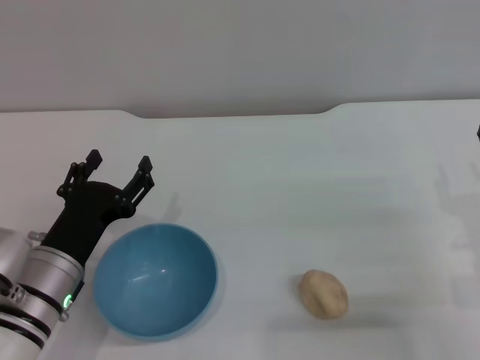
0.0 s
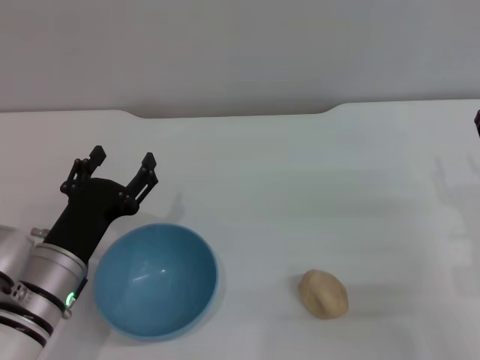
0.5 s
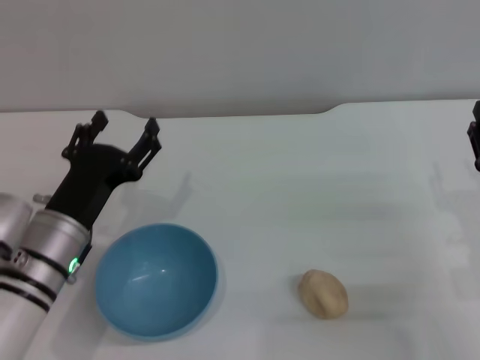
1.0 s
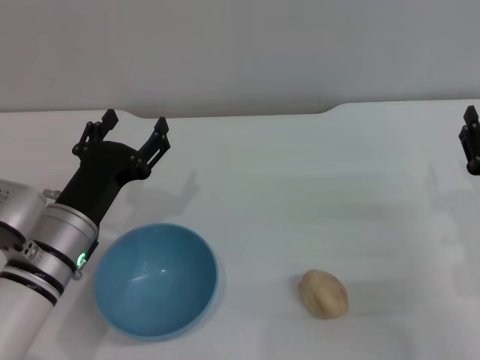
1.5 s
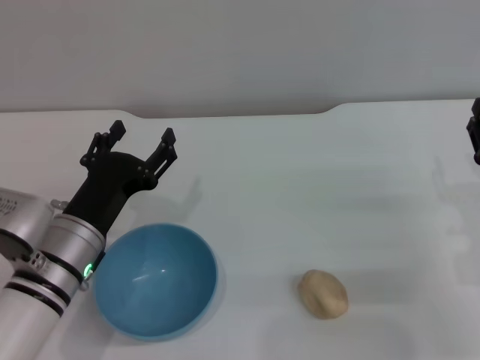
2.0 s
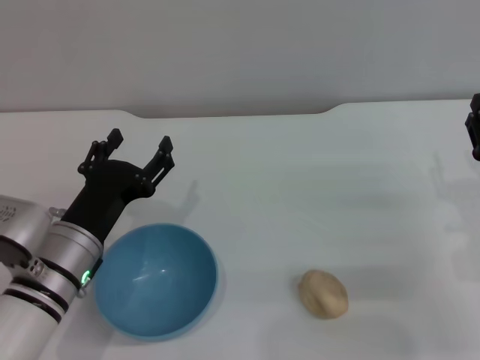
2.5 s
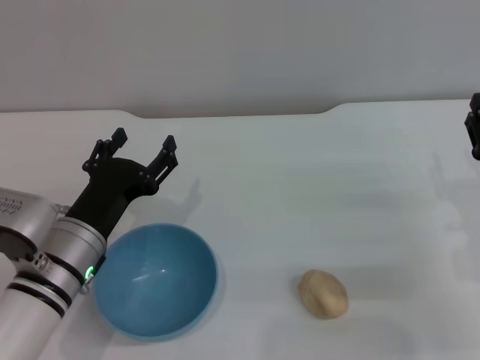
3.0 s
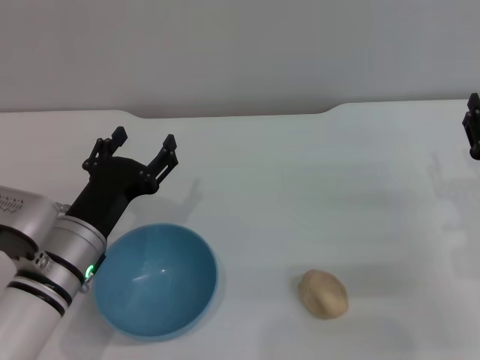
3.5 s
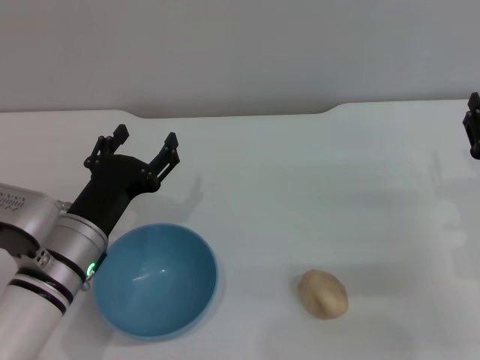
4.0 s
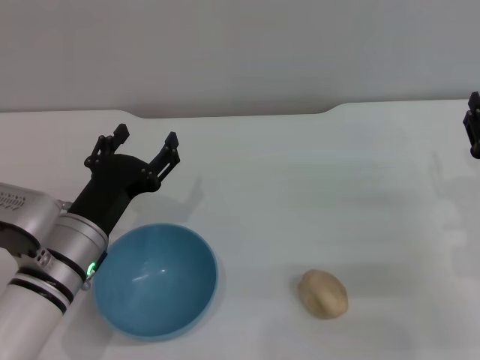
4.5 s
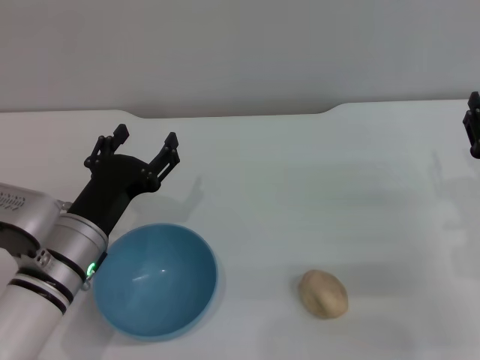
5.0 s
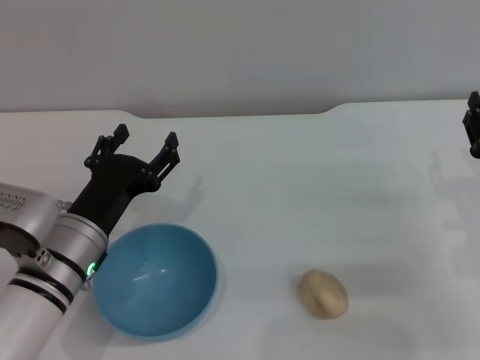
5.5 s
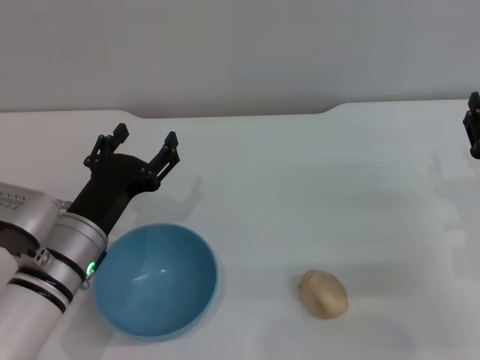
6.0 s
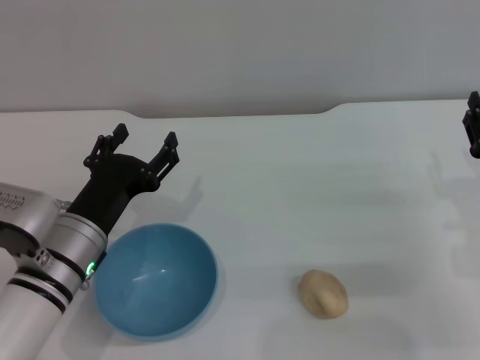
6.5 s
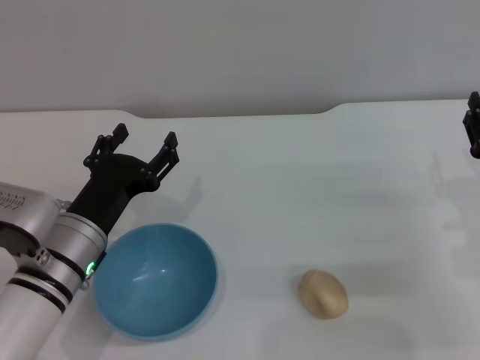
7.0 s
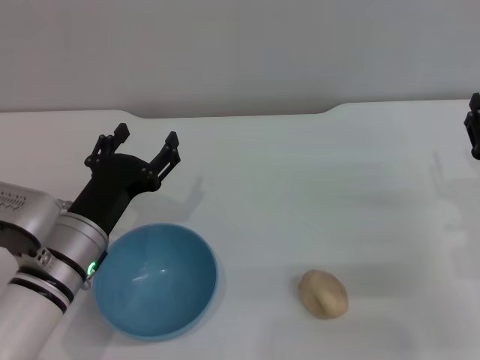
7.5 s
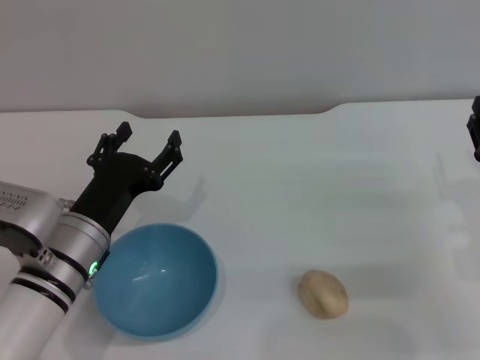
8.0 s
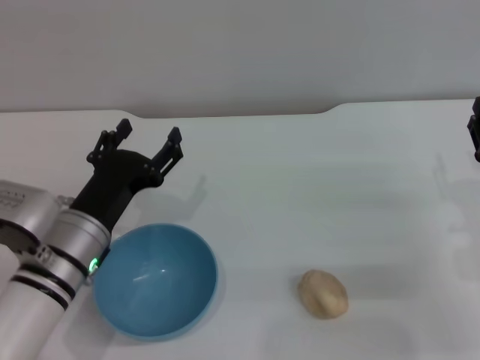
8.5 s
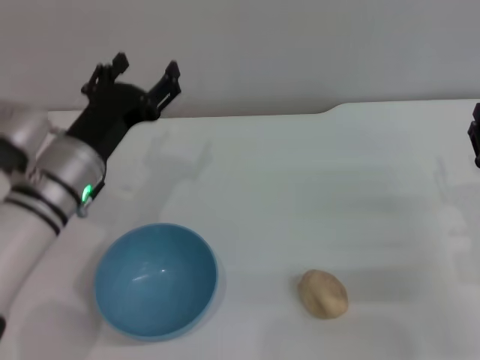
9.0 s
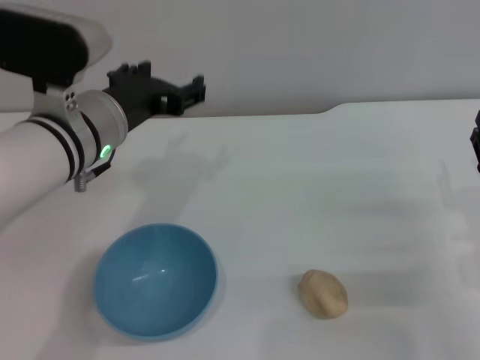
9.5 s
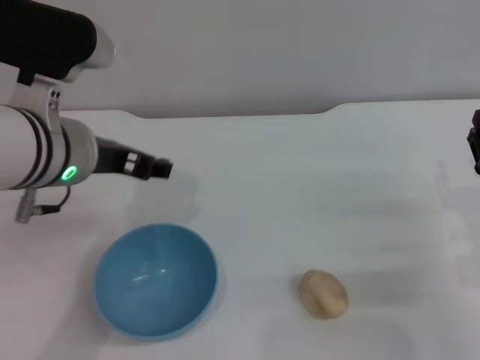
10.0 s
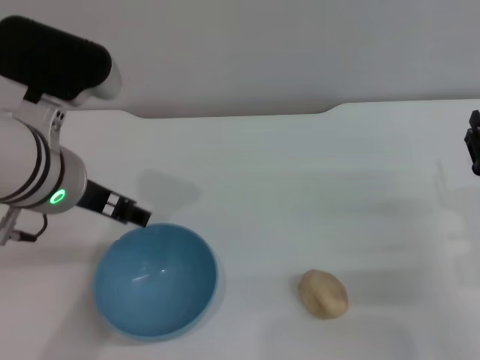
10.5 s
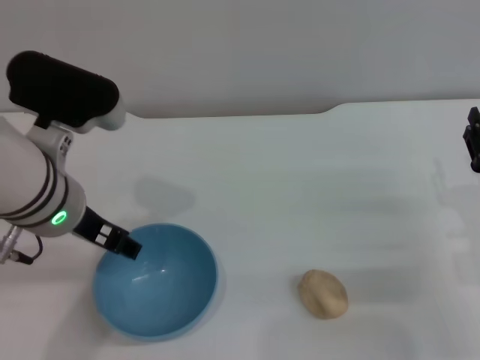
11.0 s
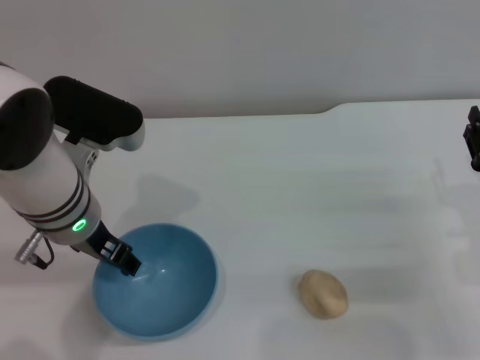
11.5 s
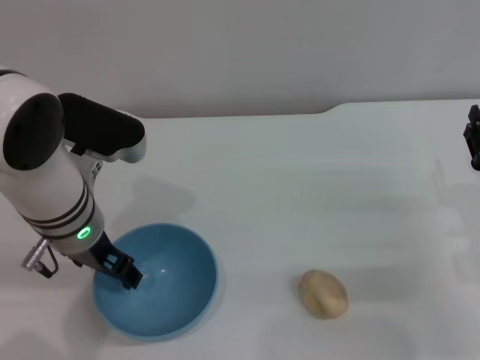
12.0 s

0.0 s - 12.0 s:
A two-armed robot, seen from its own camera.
Task of the whole recording: put the egg yolk pastry into the blue bowl and pour it out repeatedly.
0.0 s - 2.0 s: The grippers stay close to where they were, moving slightly.
2.0 s - 8.0 s: The two grippers keep their place.
8.0 s - 10.0 s: The left gripper travels upward by some 15 cm.
10.0 s - 12.0 s: The left gripper shifts approximately 5 cm downward.

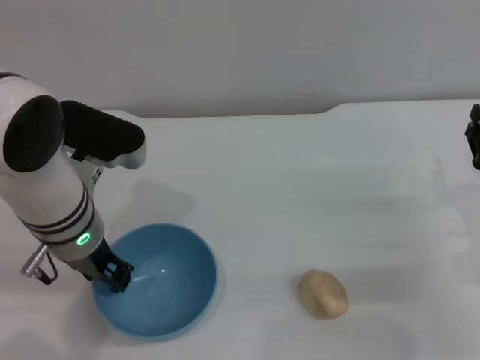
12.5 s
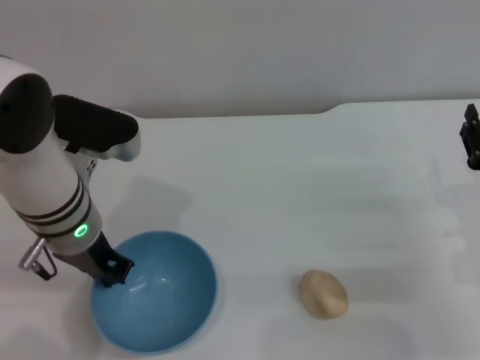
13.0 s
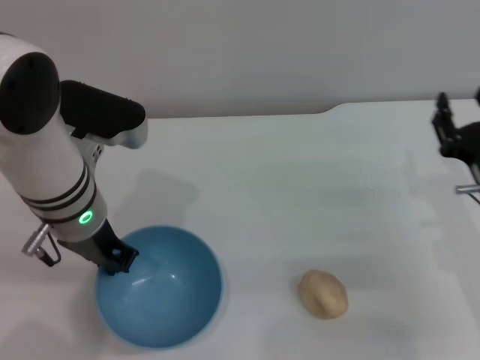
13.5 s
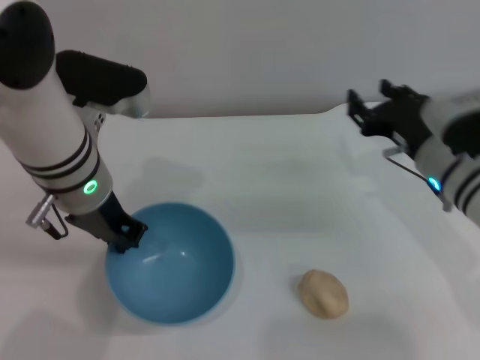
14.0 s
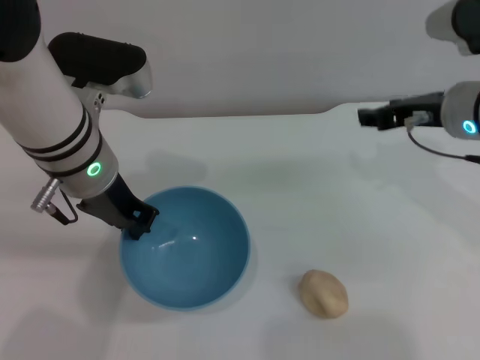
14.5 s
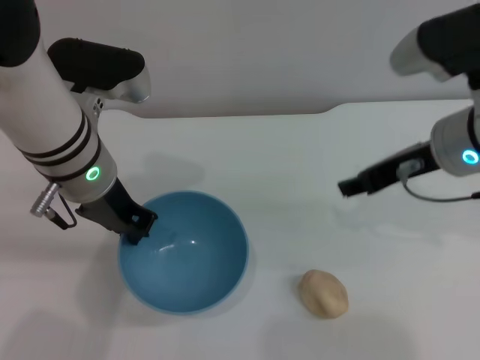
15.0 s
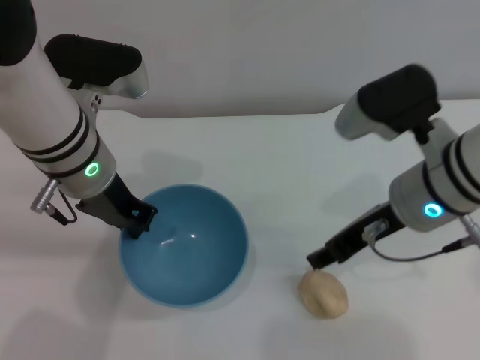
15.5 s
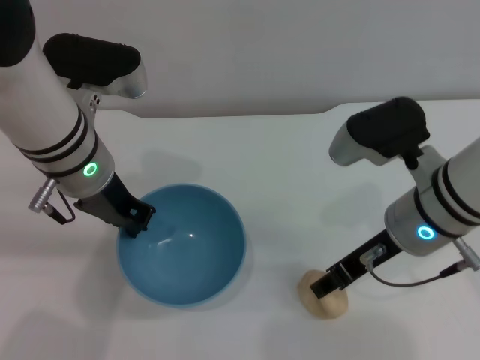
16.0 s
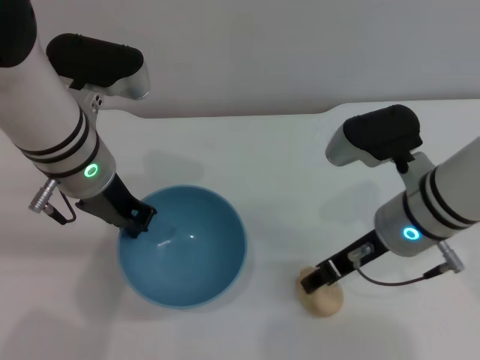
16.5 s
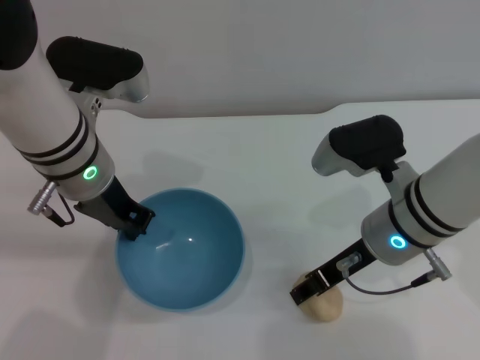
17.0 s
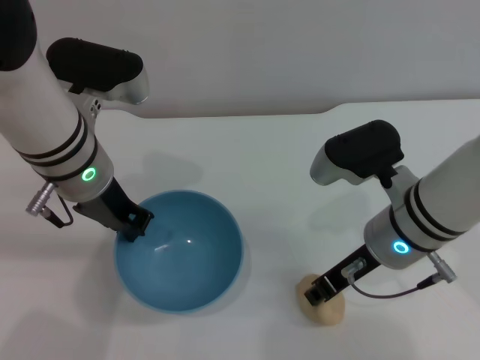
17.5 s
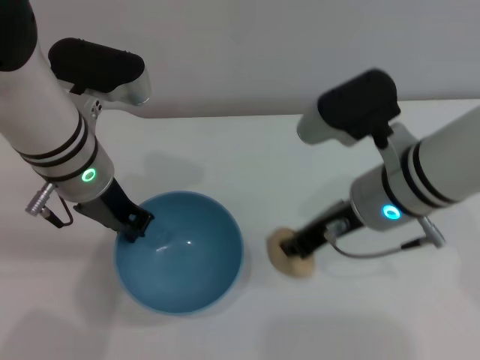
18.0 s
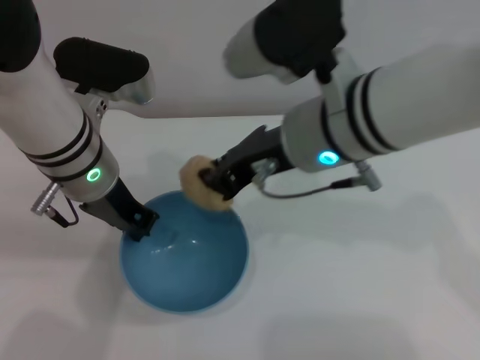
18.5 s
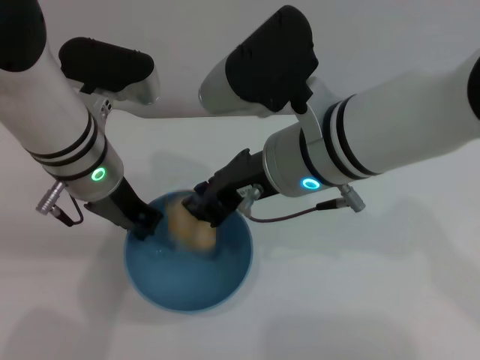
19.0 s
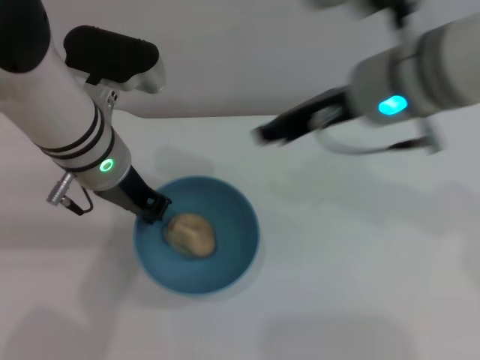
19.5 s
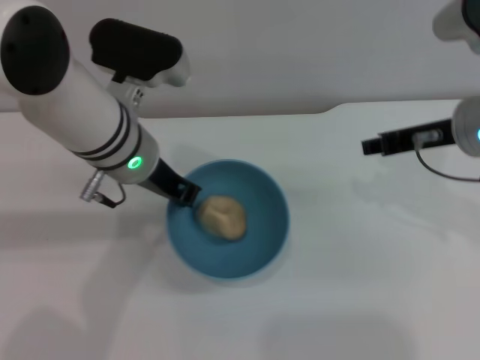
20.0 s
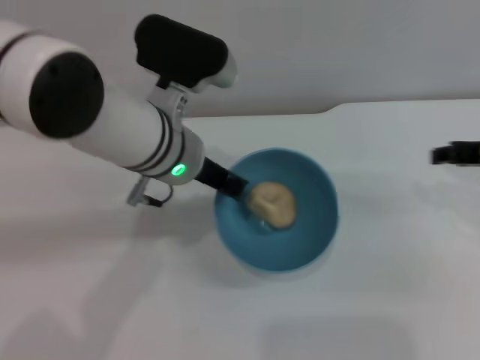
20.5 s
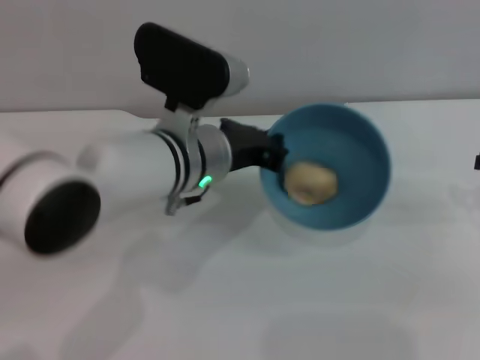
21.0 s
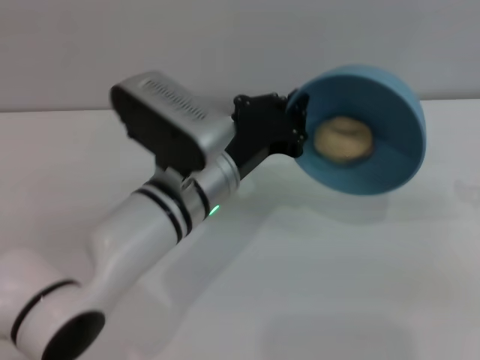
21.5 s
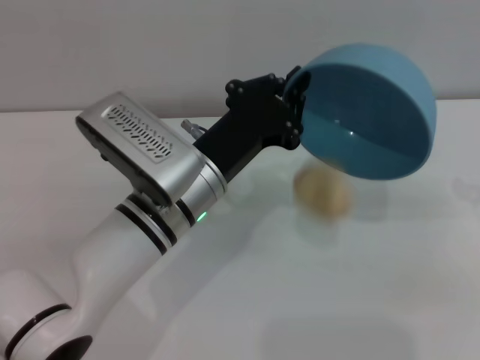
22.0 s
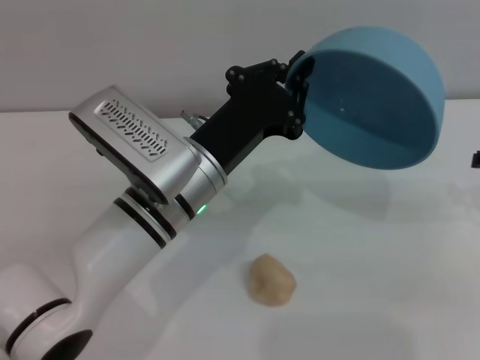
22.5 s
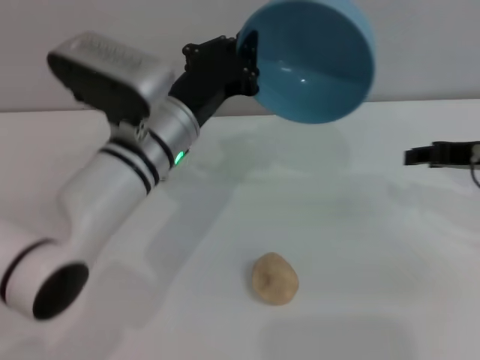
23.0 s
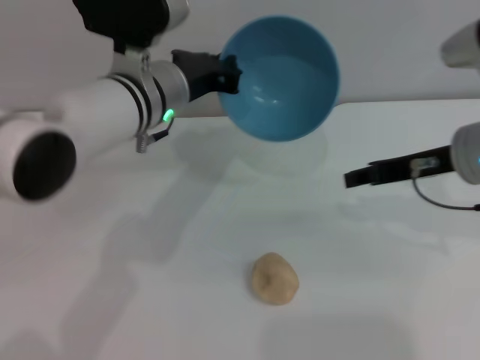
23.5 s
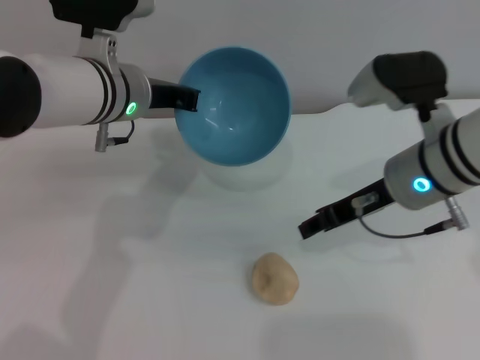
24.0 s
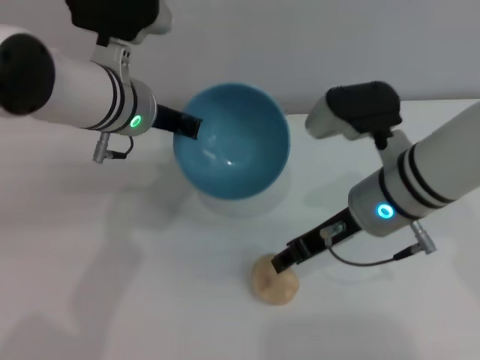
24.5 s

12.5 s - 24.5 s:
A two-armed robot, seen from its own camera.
Task of the whole recording: put the egg yolk pastry into the blue bowl and pour it out repeatedly.
Step, 14.5 s - 17.5 s: Pick up the egg yolk pastry with the right gripper.
Step, 18.5 s - 19.0 s: Place the egg yolk pastry into the bowl.
Step, 19.5 s - 22.5 s: Pour the egg yolk pastry out of bowl.
12.5 s - 14.5 s: The left gripper is displaced upward by about 5 cm, and closes, while the right gripper is displaced upward, forward and to the left by about 20 cm.
14.5 s - 16.5 s: The right gripper heads to the left and backward, covering some 10 cm.
16.5 s - 18.5 s: The right gripper heads upward and to the left, covering approximately 15 cm, and closes its fingers.
18.5 s - 20.5 s: The left gripper shifts about 5 cm to the right, while the right gripper goes approximately 20 cm to the right, and opens its fingers.
20.5 s - 22.5 s: The left gripper is displaced backward and downward by about 5 cm.
22.5 s - 24.5 s: The right gripper travels to the left by approximately 20 cm. The left gripper is displaced forward and upward by some 10 cm.

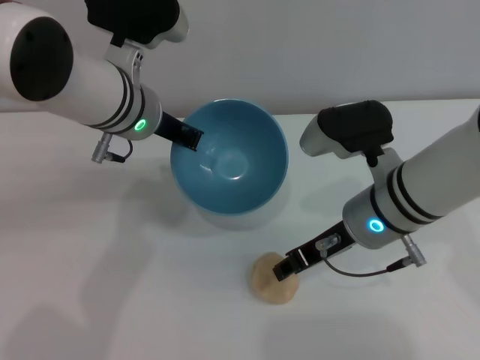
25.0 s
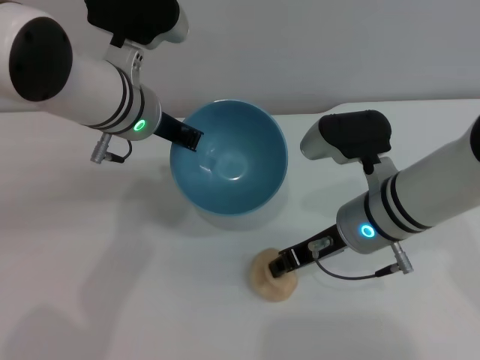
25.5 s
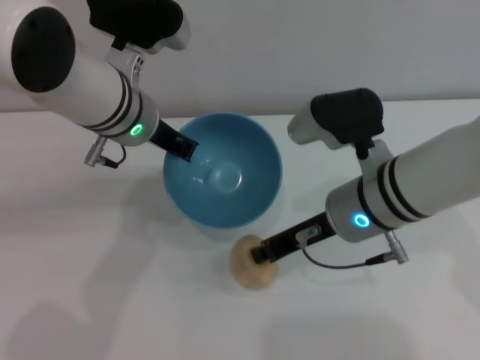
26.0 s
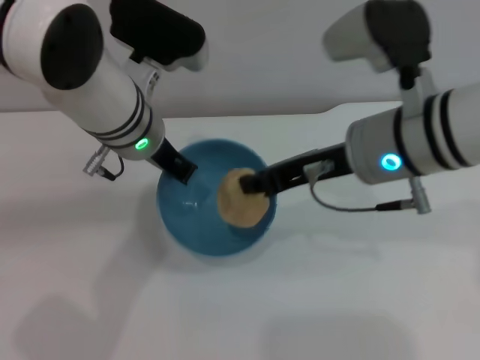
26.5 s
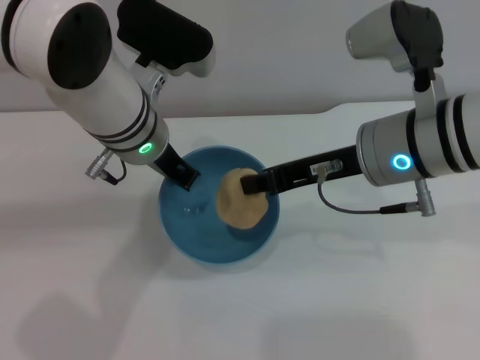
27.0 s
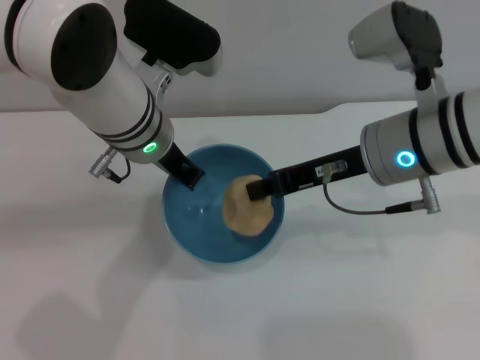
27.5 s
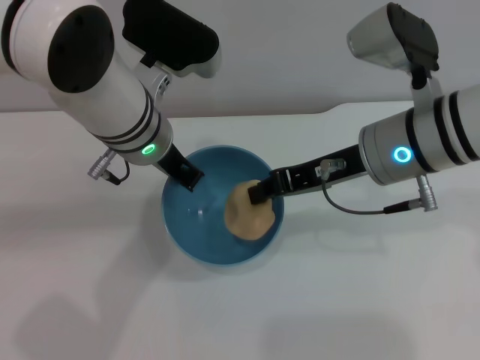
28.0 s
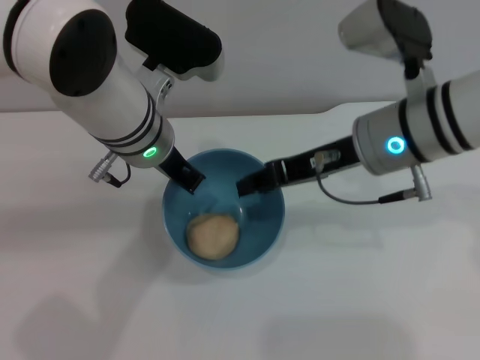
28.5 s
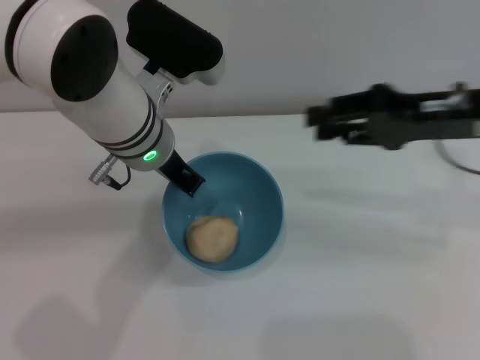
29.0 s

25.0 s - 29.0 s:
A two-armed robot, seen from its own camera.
Task of the whole recording: put the egg yolk pastry into the blue bowl and pour it out repeatedly.
Step, 26.5 s - 28.5 s: Place the egg yolk pastry into the bowl.
25.0 s - 27.0 s: The right gripper is displaced upward by approximately 10 cm, and closes up.
27.0 s - 29.0 s: The right gripper goes roughly 10 cm to the right, and opens.
